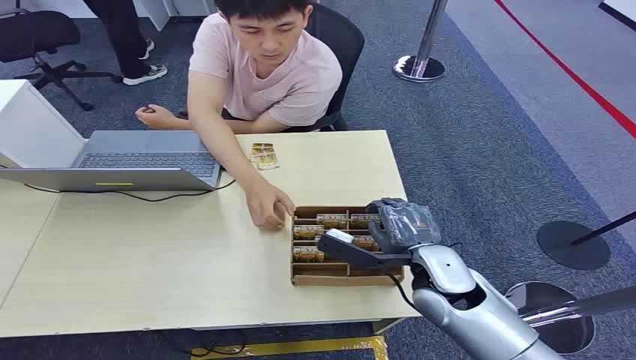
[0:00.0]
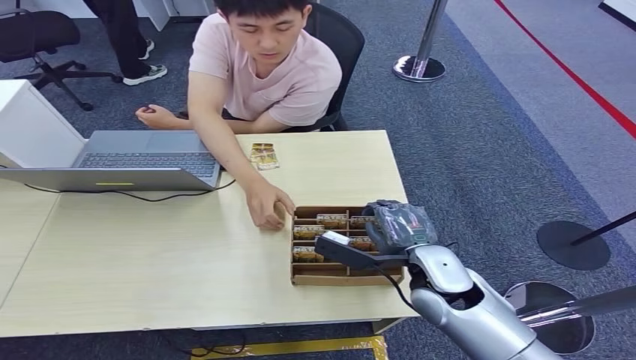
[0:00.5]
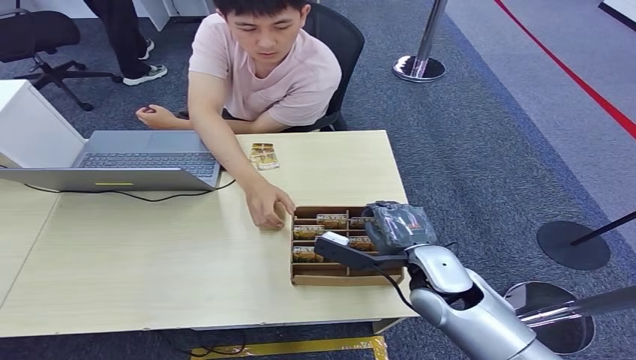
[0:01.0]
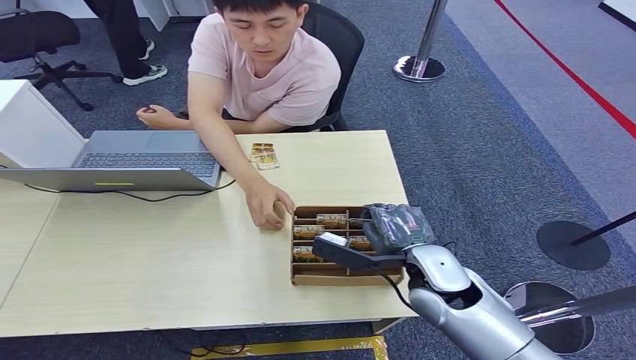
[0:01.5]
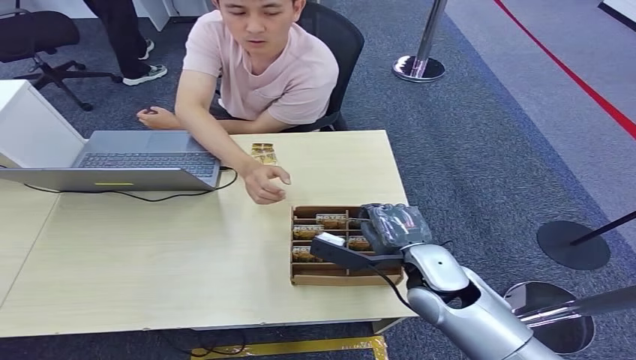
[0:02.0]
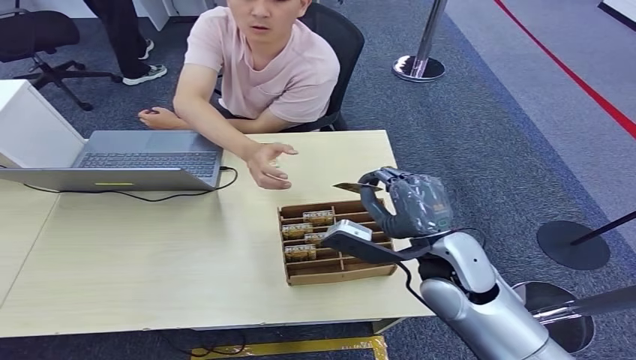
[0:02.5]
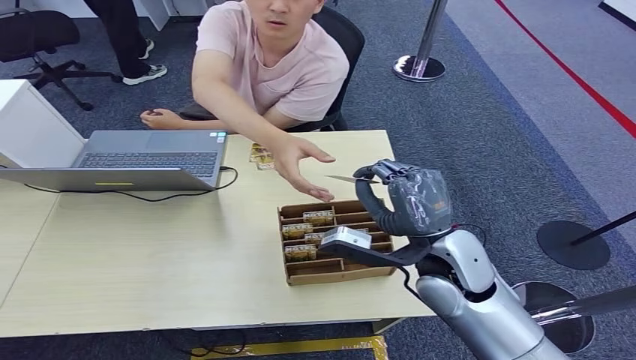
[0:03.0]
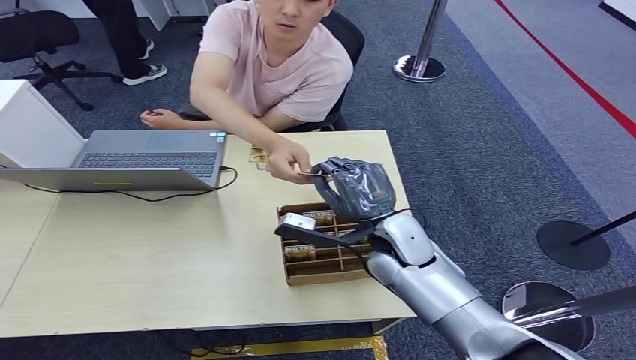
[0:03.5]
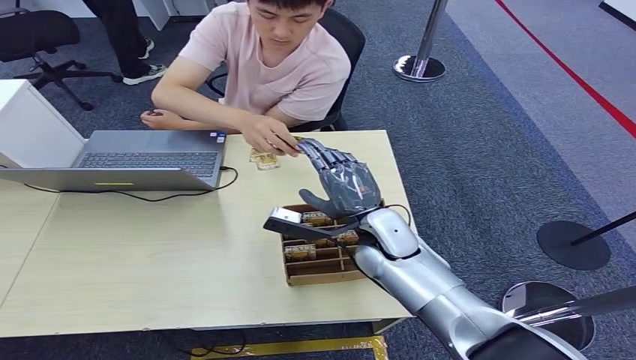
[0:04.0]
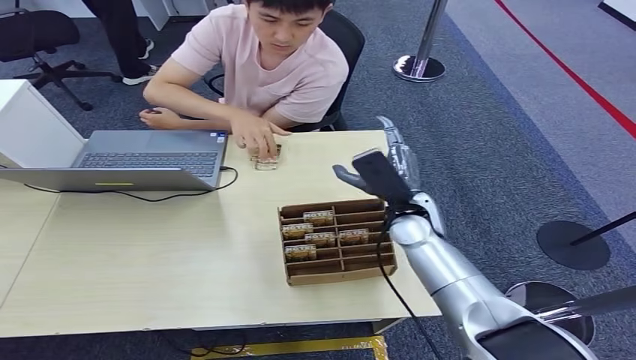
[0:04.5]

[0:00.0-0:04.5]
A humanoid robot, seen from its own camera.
Step, 0:00.0 to 0:02.0: Pick up the room card from the card holder.
Step, 0:02.5 to 0:04.5: Hand the room card to the target.
0:02.0 to 0:04.5: The right hand travels forward by roughly 10 cm.
